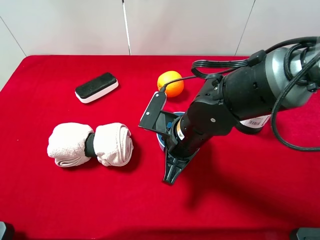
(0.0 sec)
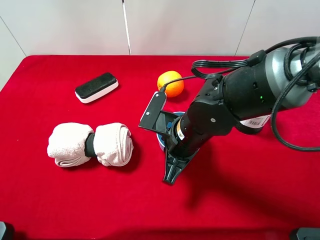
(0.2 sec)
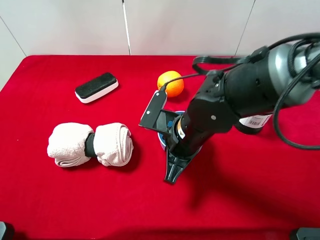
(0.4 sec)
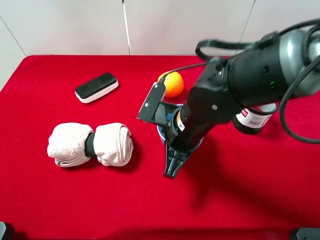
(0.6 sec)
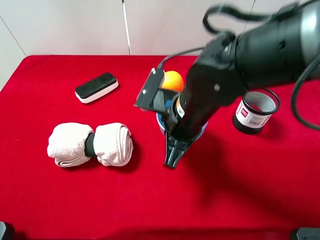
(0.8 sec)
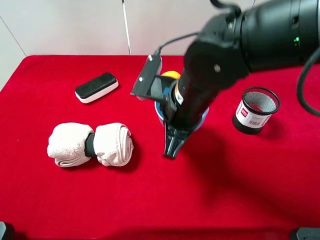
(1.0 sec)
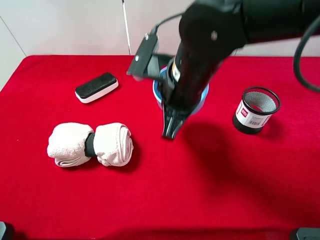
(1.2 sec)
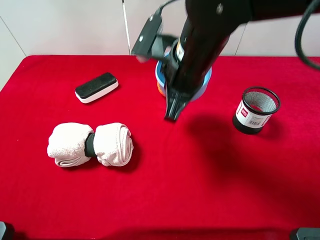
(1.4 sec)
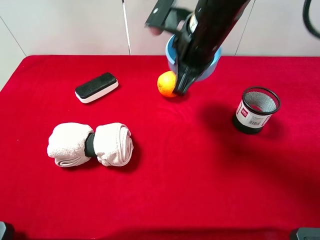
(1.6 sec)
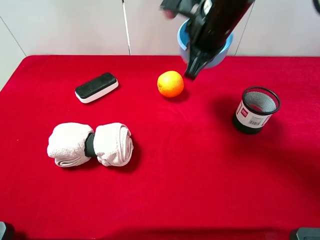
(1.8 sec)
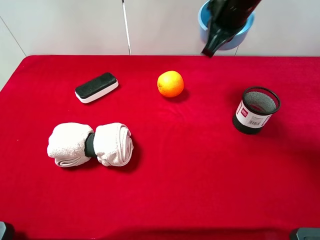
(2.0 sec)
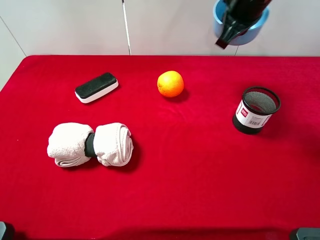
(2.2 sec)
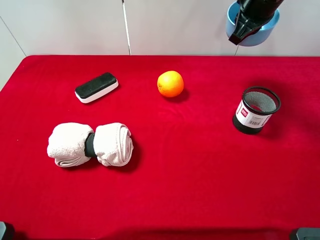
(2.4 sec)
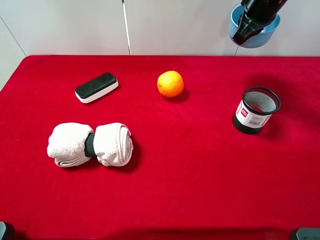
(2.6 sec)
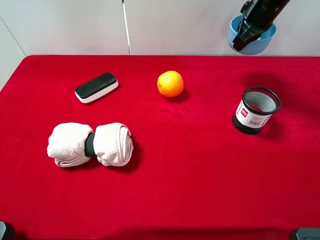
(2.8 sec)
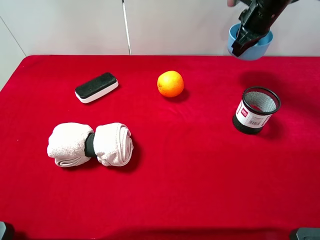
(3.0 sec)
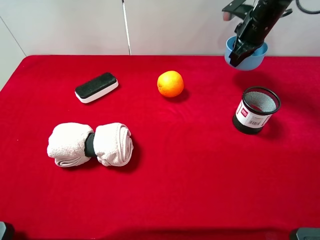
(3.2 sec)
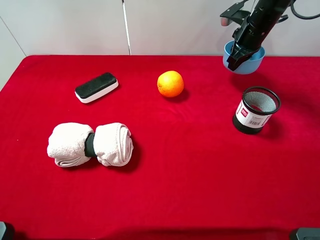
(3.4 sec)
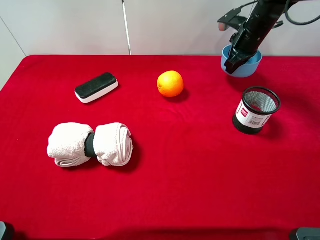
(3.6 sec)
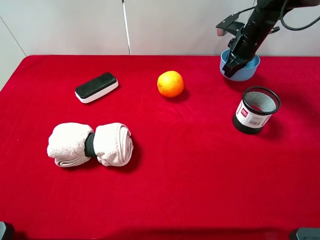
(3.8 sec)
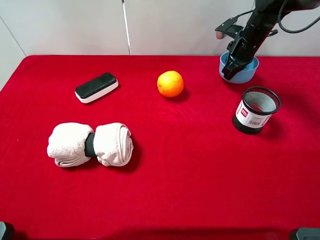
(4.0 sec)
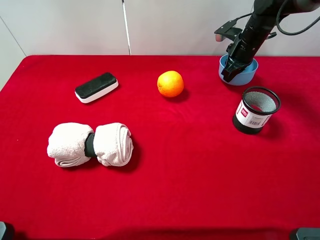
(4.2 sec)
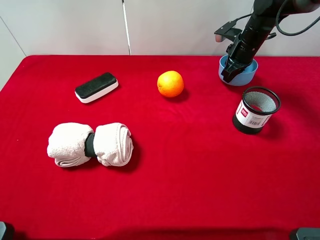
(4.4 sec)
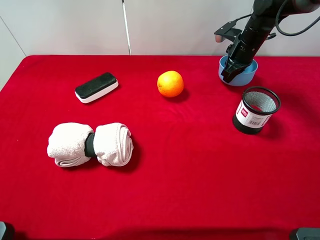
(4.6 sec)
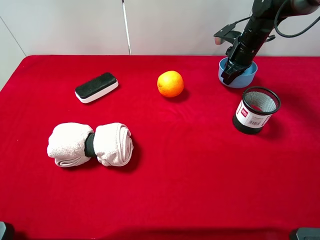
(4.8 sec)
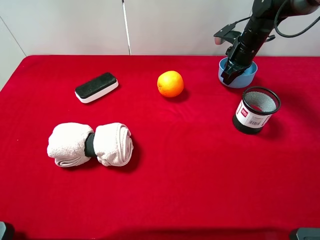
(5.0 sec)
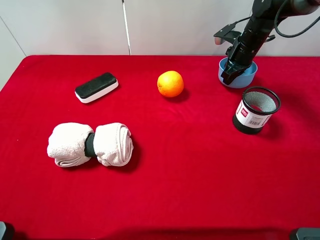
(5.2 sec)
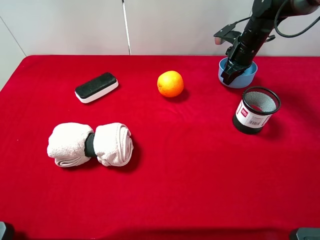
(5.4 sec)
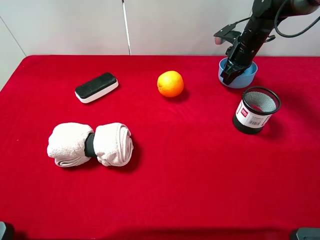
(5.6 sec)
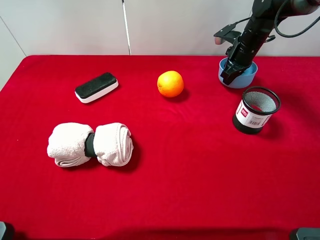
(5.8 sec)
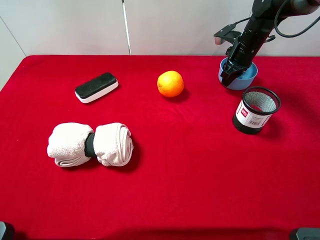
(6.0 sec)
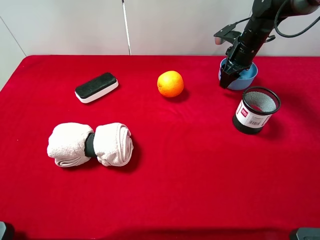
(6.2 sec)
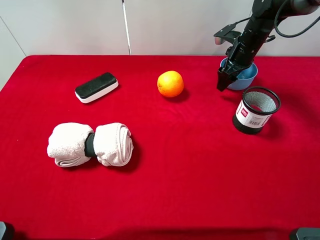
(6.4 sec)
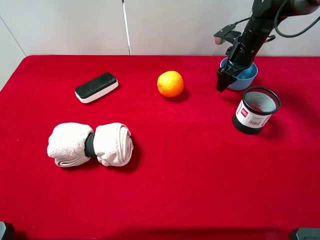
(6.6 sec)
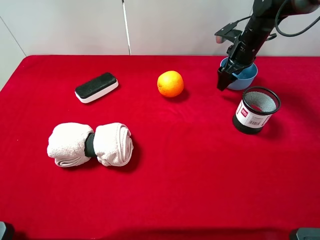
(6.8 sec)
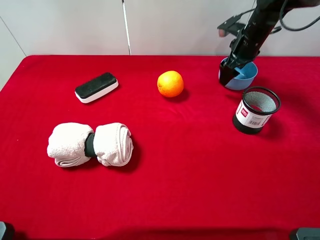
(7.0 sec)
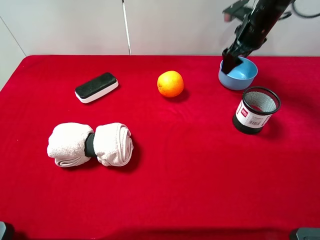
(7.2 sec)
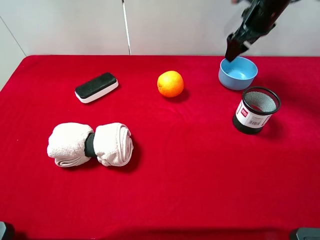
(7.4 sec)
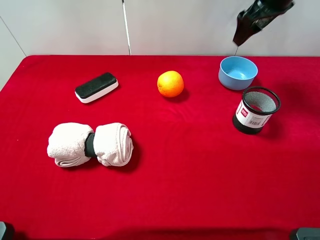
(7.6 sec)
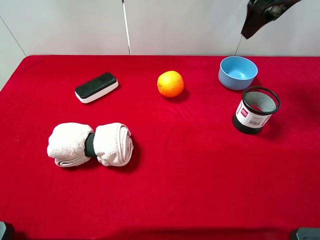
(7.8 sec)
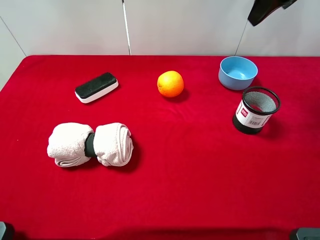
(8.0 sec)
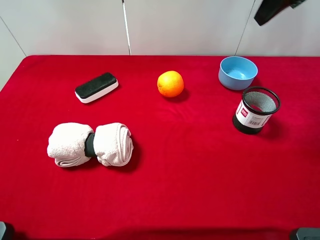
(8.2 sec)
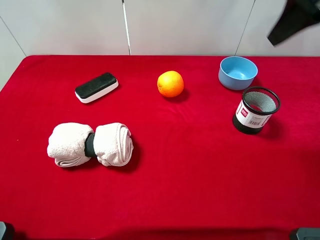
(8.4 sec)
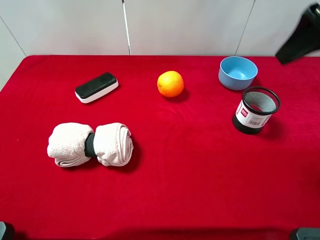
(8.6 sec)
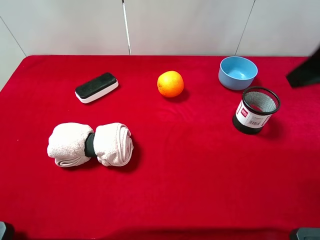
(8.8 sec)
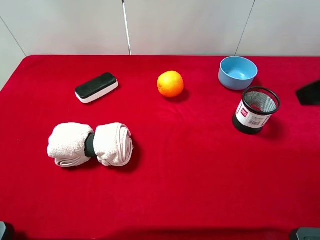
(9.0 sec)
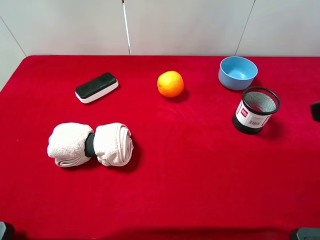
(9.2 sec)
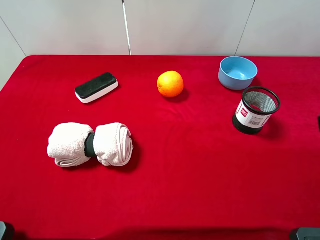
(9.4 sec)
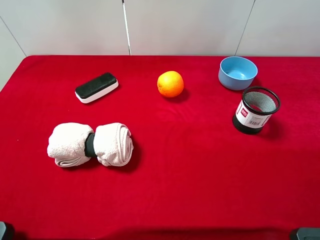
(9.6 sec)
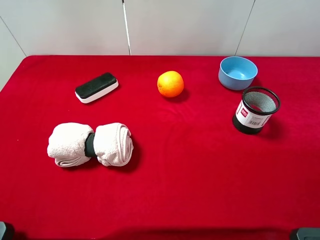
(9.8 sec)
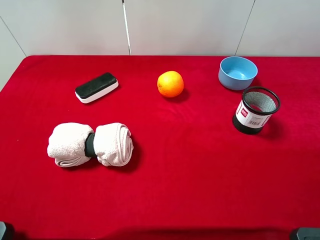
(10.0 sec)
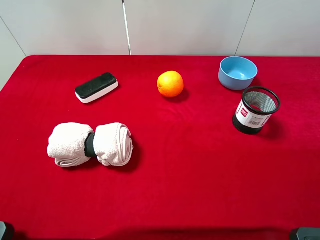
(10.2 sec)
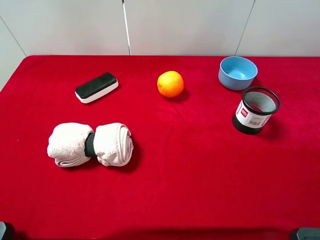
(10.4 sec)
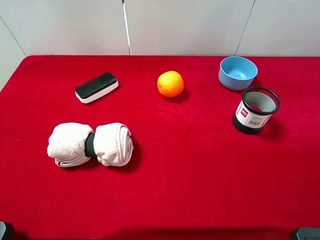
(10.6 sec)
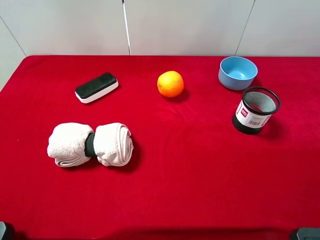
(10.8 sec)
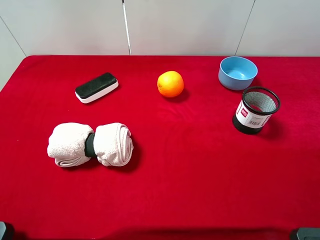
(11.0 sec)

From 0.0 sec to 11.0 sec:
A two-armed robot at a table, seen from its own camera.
Task of the whole recording: the gripper move the object.
Step, from 0.0 sec to 7.4 sec: Place the blue bowl on the table with the right gripper.
From 0.0 sec to 1.6 sec: The right gripper goes approximately 15 cm upward and forward.
From 1.6 sec to 3.2 sec: The right gripper travels forward and to the right by roughly 25 cm.
From 3.2 sec to 4.8 sec: The right gripper moves downward, approximately 5 cm.
From 6.2 sec to 7.8 sec: The right gripper shifts some 15 cm upward, and opens its fingers.
From 7.8 sec to 9.4 sec: The right gripper heads backward, covering approximately 35 cm.
